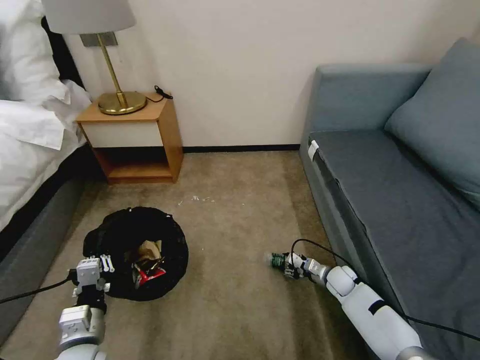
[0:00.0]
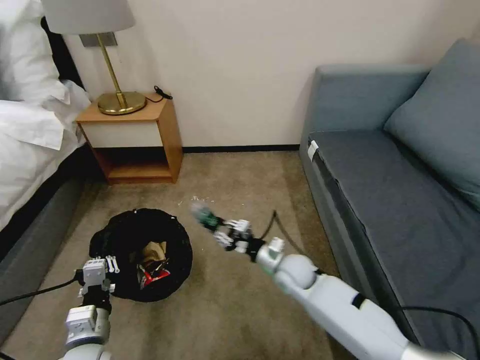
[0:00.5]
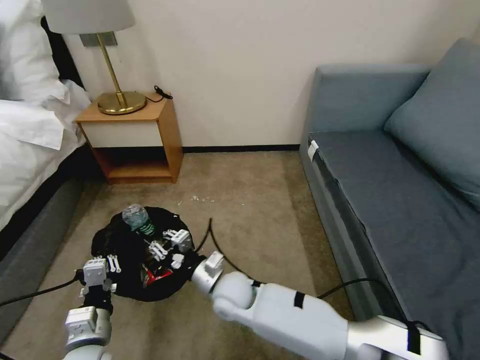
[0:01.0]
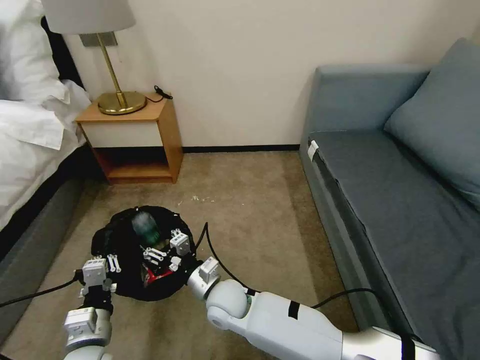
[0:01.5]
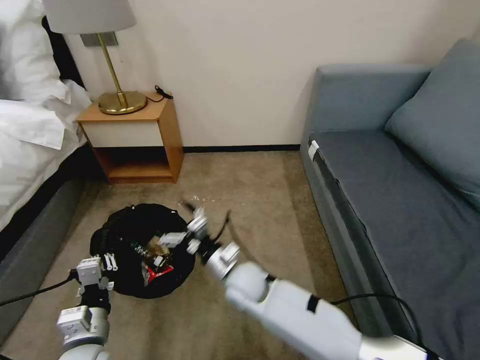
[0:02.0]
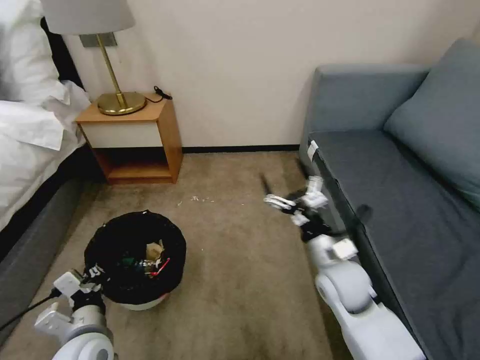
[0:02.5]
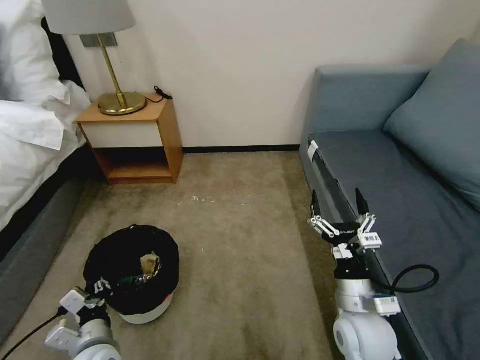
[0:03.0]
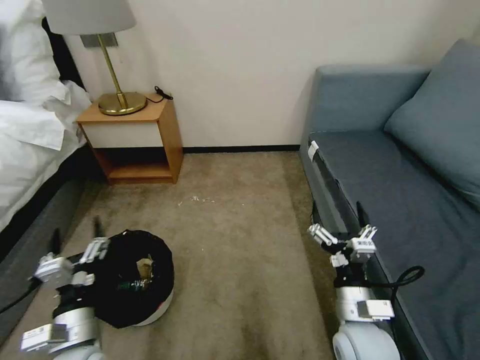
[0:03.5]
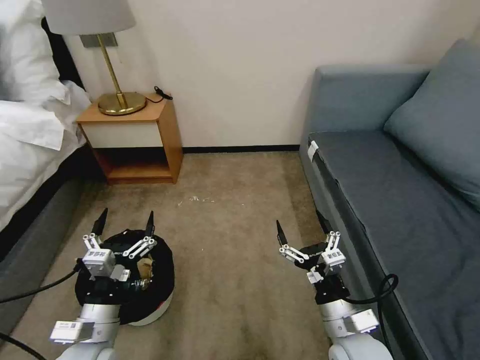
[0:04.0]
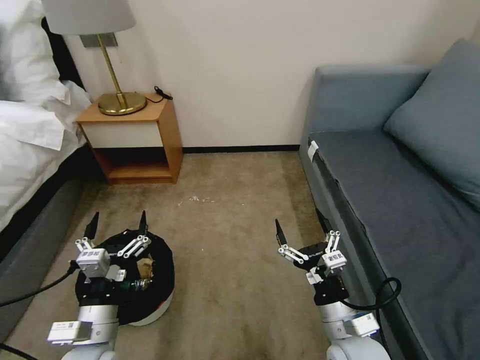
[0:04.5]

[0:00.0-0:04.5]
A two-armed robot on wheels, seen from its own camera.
Task of the whole recording: Pick up the trash bin, then pick up the garbage on the floor and place it into the trash bin.
0:00.0 to 0:02.0: The right gripper shifts roughly 35 cm to the left and upward, and opens.
0:02.0 to 0:04.5: The right gripper travels to the right and backward by roughly 25 cm, while the left gripper opens its fingers.

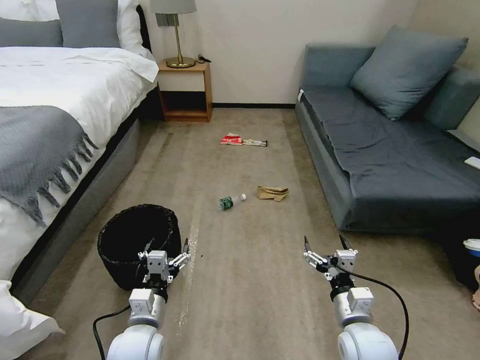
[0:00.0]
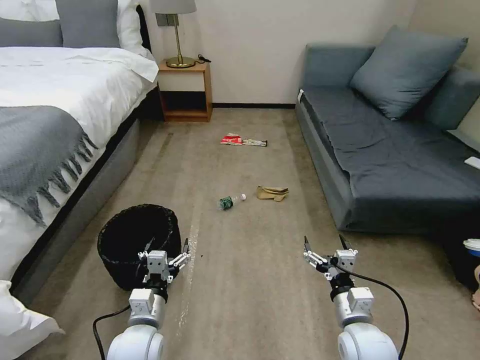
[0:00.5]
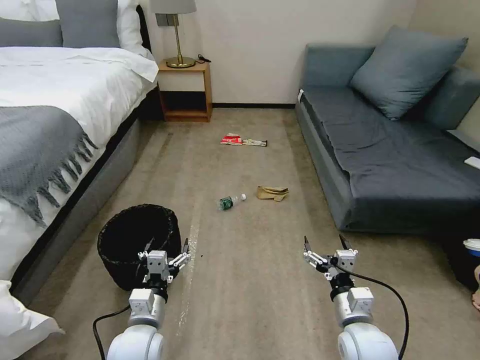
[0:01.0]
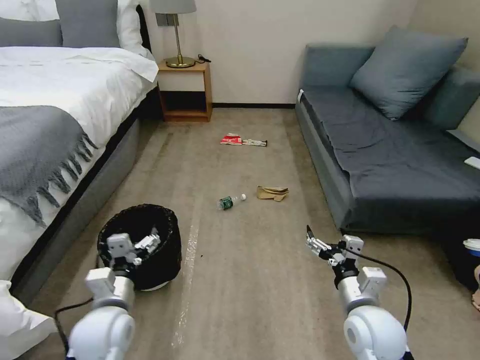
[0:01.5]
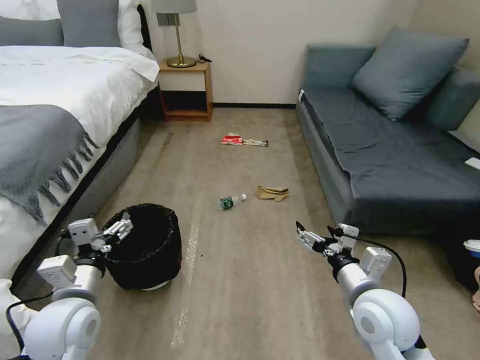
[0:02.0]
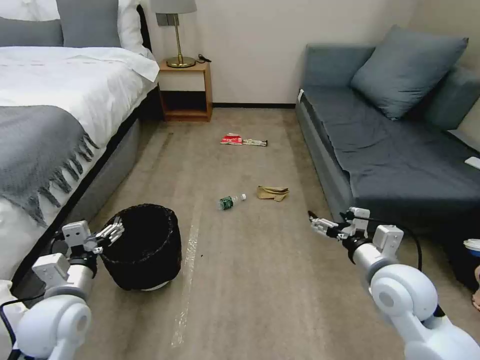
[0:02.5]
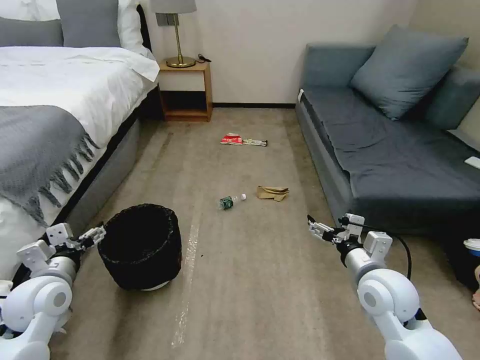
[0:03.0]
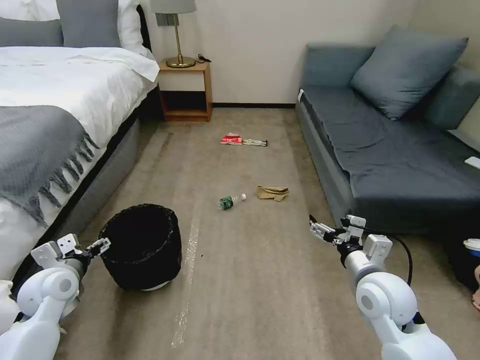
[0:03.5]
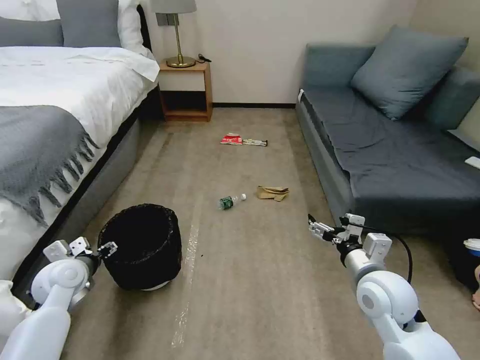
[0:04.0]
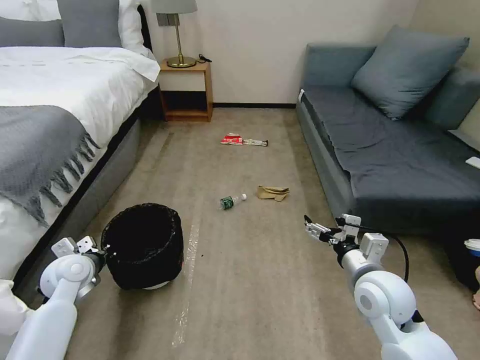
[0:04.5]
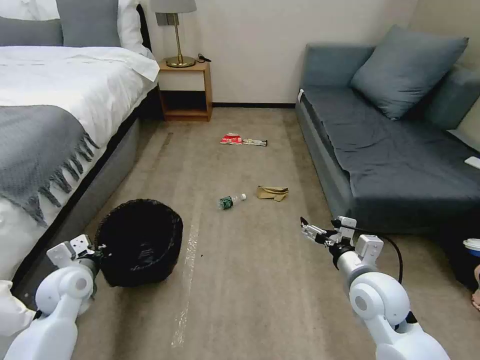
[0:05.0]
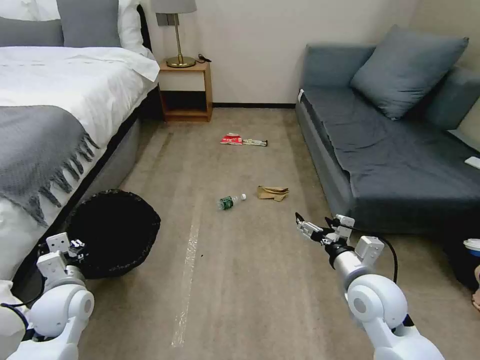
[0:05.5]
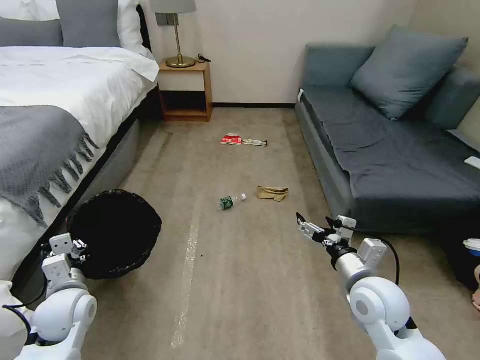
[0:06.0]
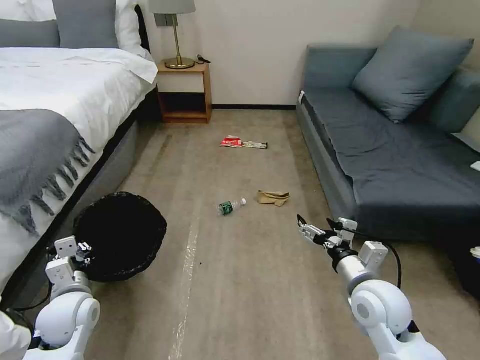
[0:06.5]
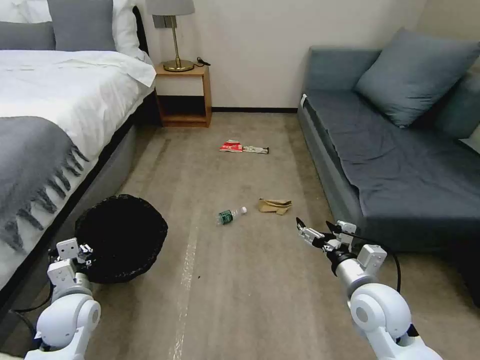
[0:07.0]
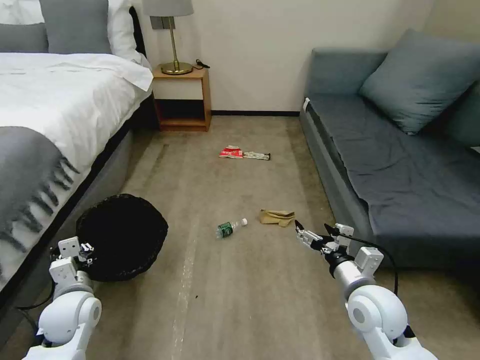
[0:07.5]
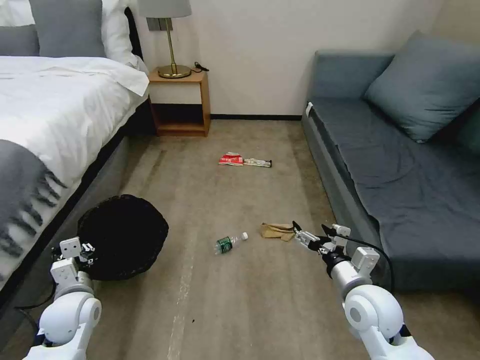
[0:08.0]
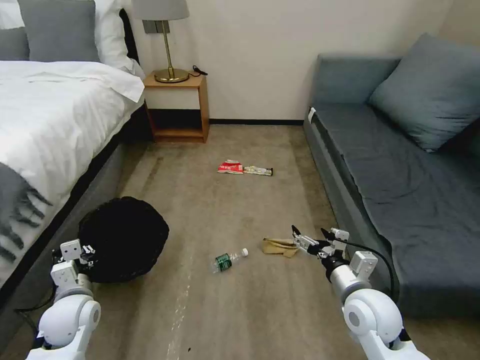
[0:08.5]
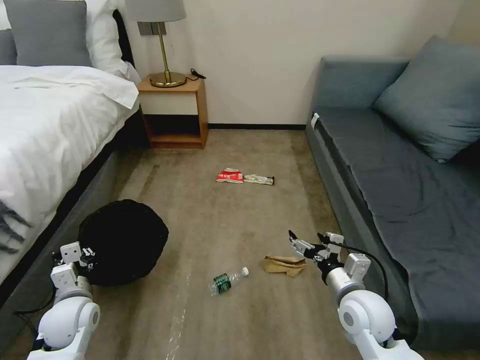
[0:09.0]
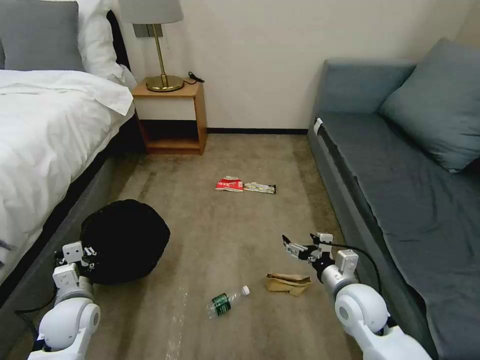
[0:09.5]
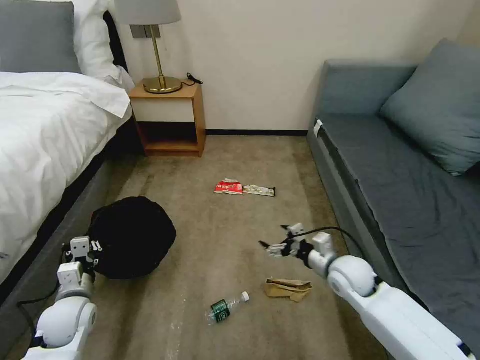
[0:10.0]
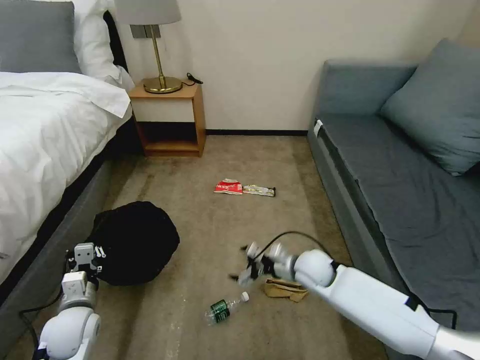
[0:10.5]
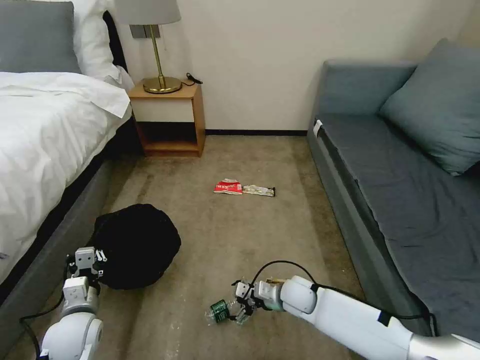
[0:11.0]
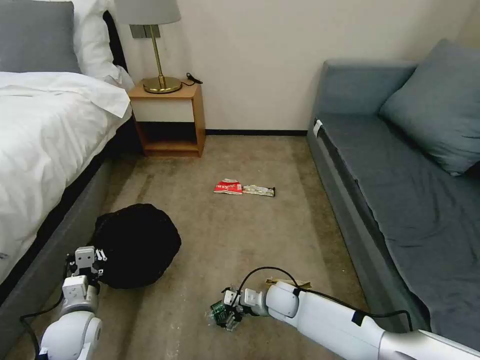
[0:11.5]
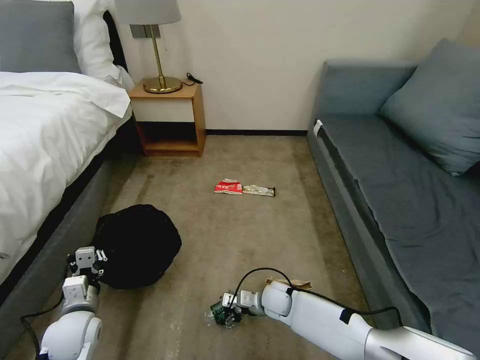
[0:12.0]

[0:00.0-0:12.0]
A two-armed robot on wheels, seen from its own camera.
Task of the whole recording: Pick up the trash bin, then pick up the garbage on the floor and place it into the trash bin.
0:02.0 to 0:04.0: The left gripper is displaced forward, to the left and downward by roughly 15 cm. Meanwhile the right gripper ends up approximately 5 cm from where it was.
0:04.0 to 0:06.0: The left gripper travels backward by roughly 5 cm, and closes.
0:08.0 to 0:10.0: The right gripper travels forward by roughly 10 cm.
0:10.0 to 0:12.0: The right gripper moves downward and to the left, approximately 20 cm.

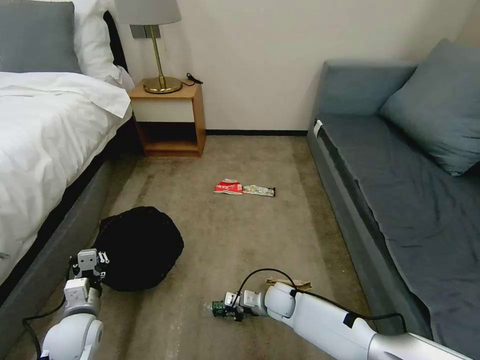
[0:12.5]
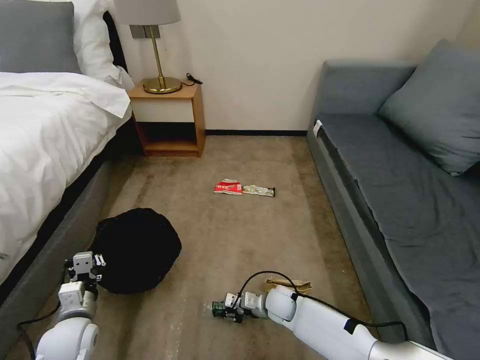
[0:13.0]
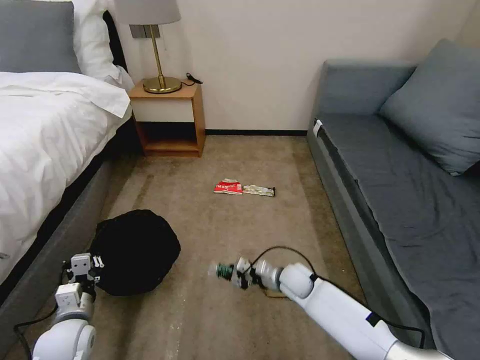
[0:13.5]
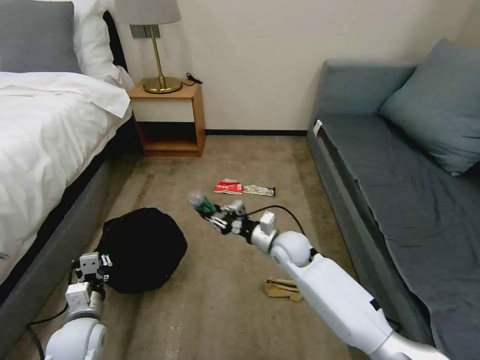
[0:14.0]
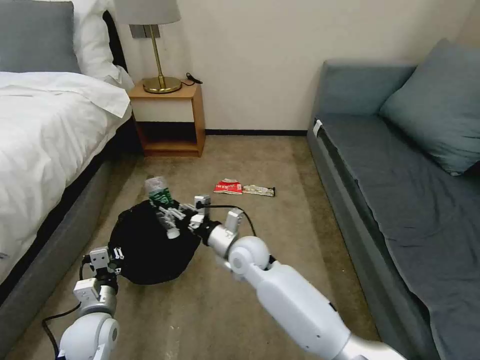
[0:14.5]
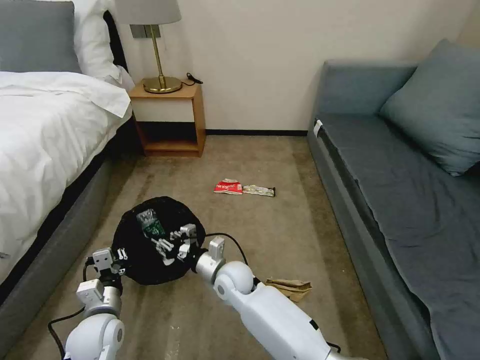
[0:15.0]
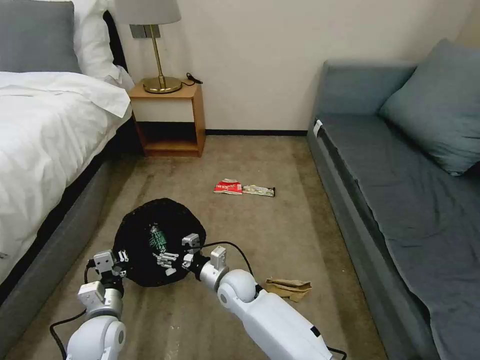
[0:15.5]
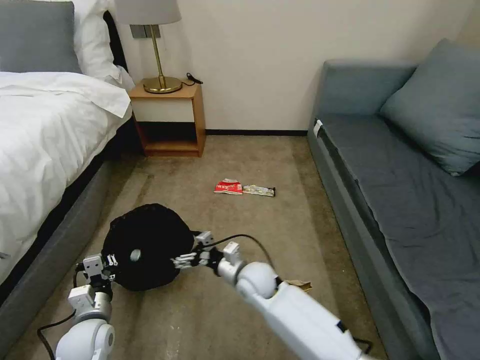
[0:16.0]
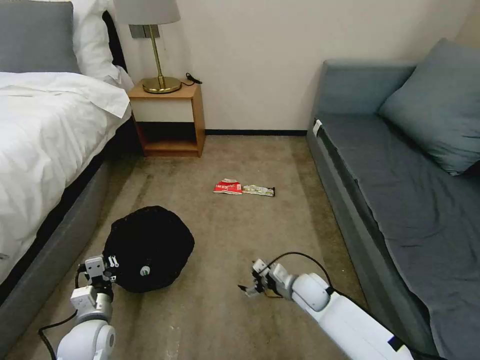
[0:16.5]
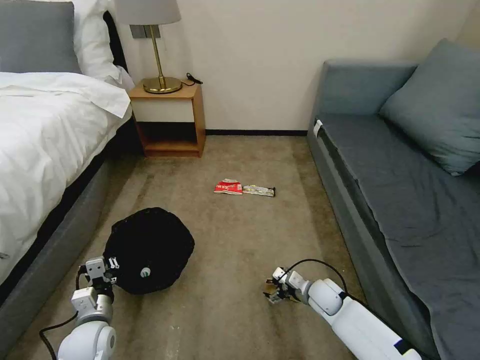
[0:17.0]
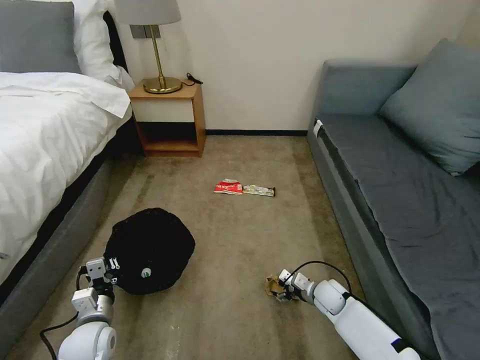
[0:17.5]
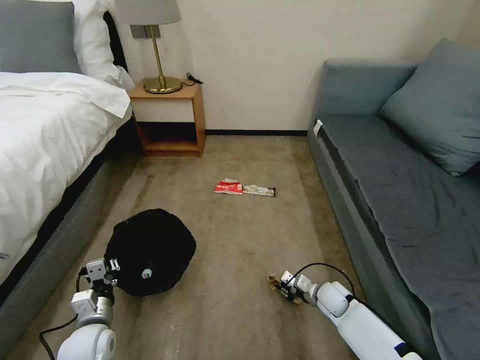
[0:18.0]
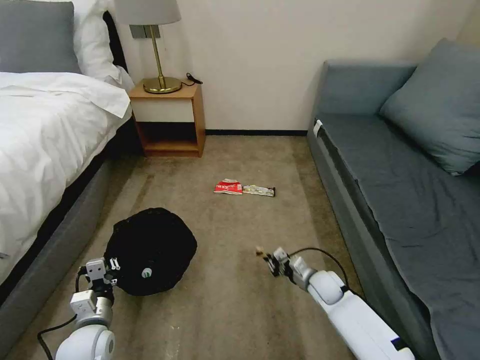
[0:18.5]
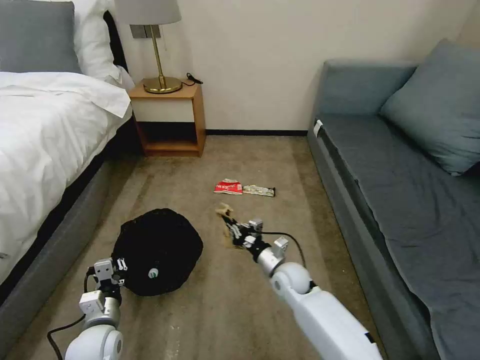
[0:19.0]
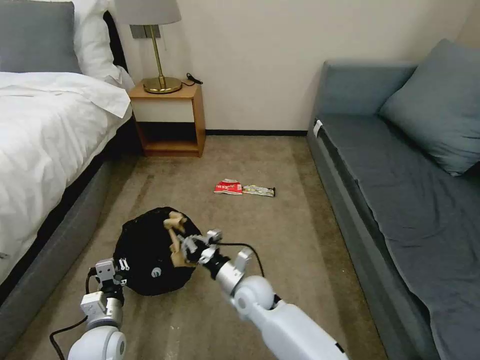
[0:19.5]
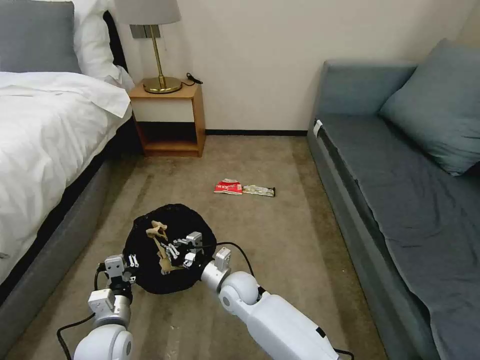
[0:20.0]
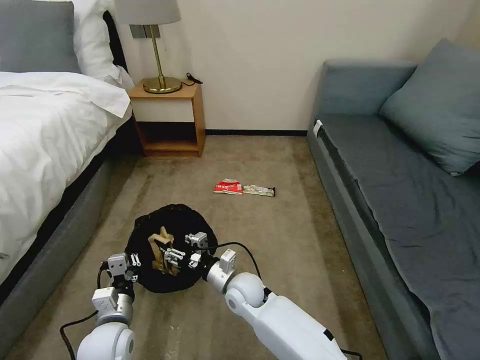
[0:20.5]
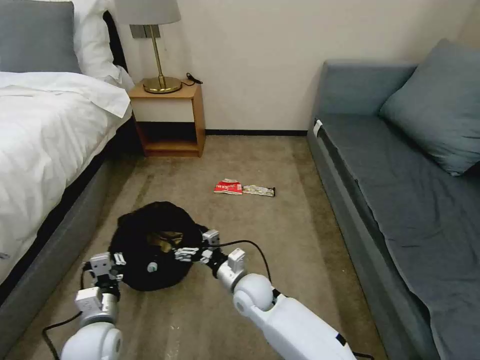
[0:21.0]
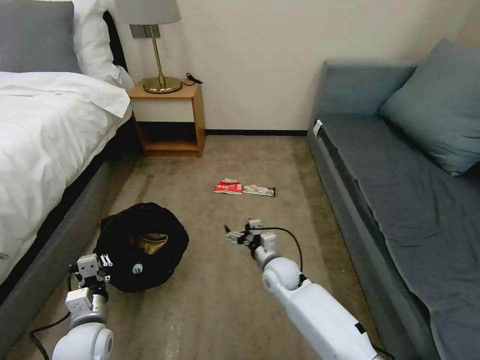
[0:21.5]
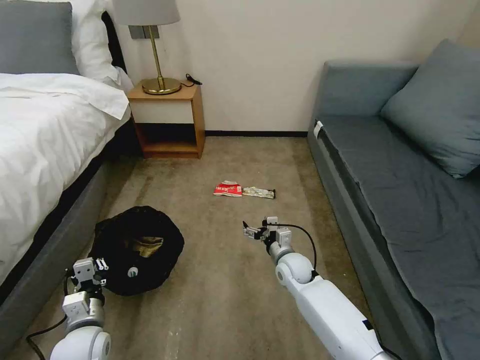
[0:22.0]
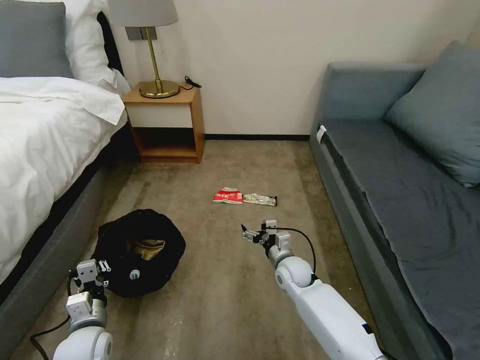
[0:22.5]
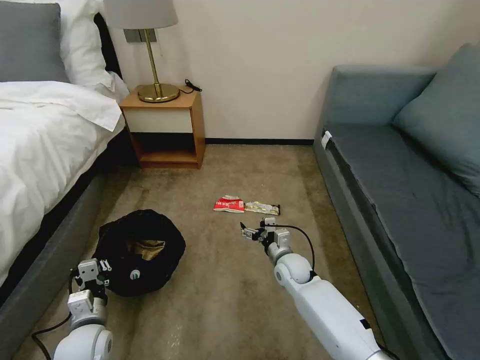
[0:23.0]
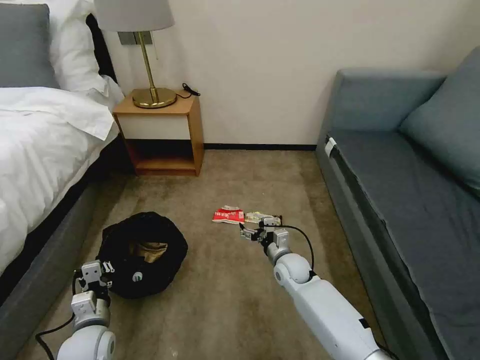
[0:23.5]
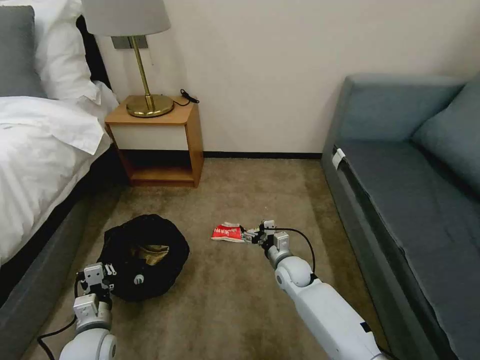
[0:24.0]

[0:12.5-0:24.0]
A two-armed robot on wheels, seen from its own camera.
Task of the whole recording: Pick up the trash bin, then pick up the garbage on the floor and place it into the trash bin.
0:12.5 to 0:14.5: The right gripper shifts roughly 20 cm upward and to the left.
0:14.5 to 0:16.5: The right gripper shifts roughly 20 cm to the right and downward, and opens its fingers.
0:16.5 to 0:18.5: The right gripper travels to the right by some 5 cm, and closes.
0:18.5 to 0:20.0: The left gripper moves approximately 5 cm, while the right gripper moves to the left, about 25 cm.
0:20.0 to 0:22.0: The left gripper shifts approximately 5 cm to the left. Meanwhile the right gripper shifts roughly 15 cm to the right and forward, and opens.
